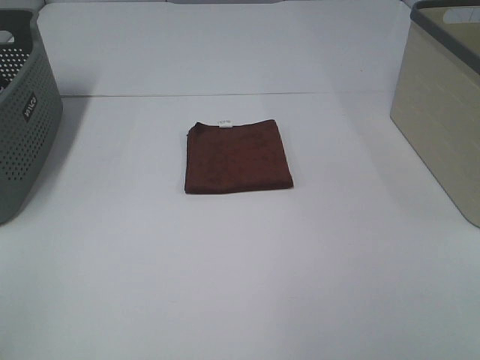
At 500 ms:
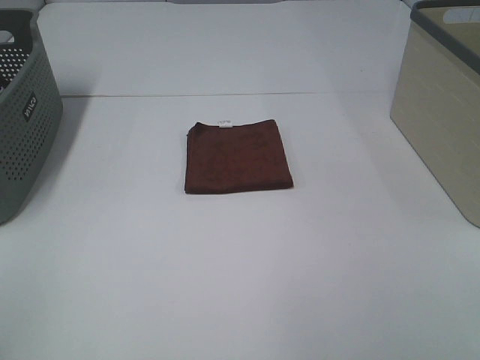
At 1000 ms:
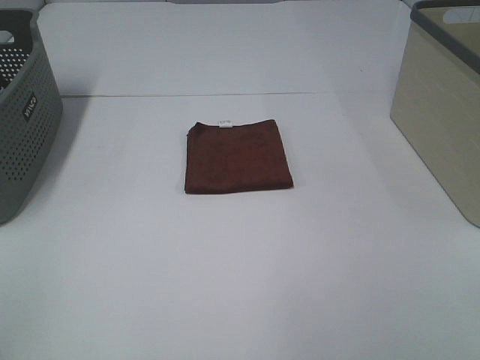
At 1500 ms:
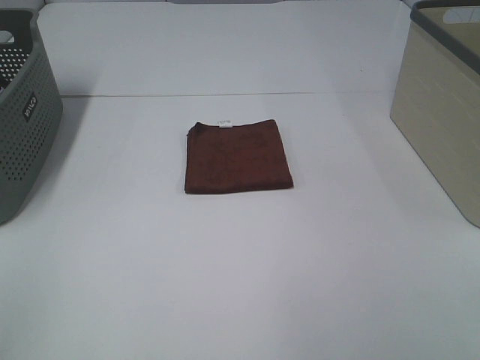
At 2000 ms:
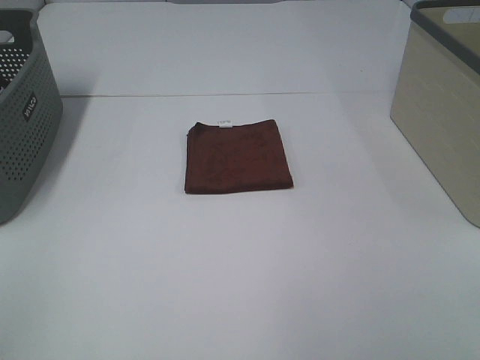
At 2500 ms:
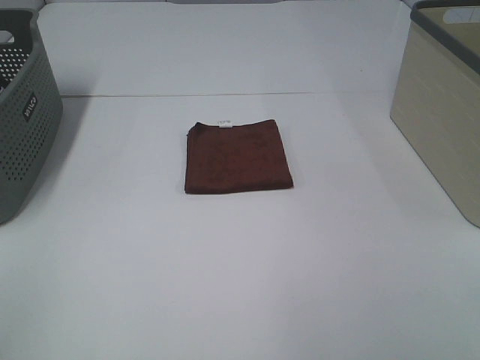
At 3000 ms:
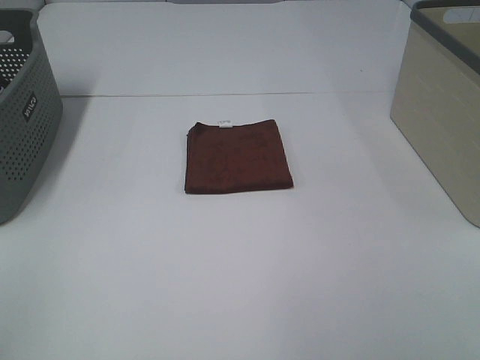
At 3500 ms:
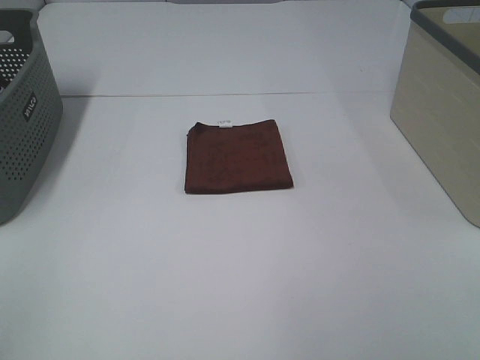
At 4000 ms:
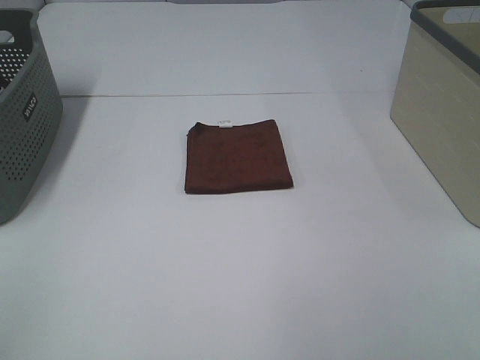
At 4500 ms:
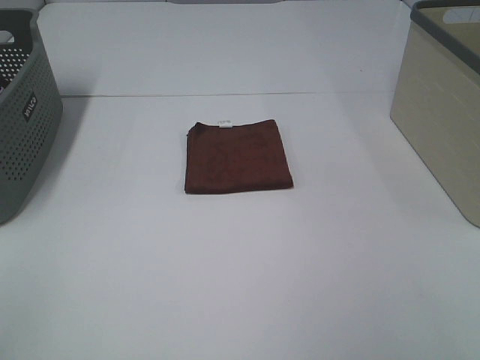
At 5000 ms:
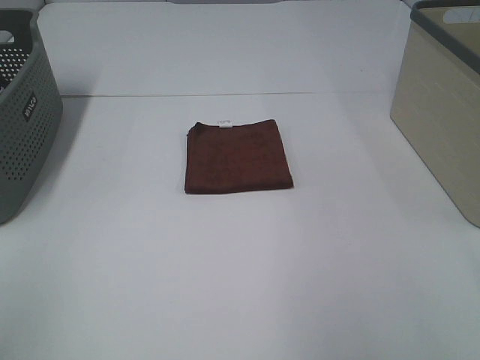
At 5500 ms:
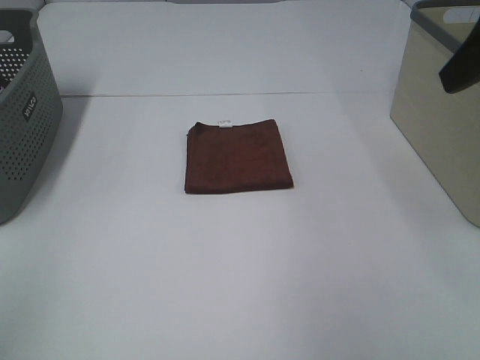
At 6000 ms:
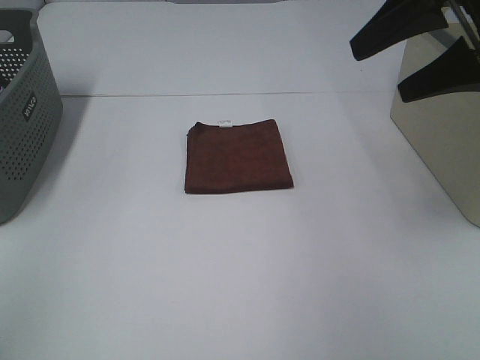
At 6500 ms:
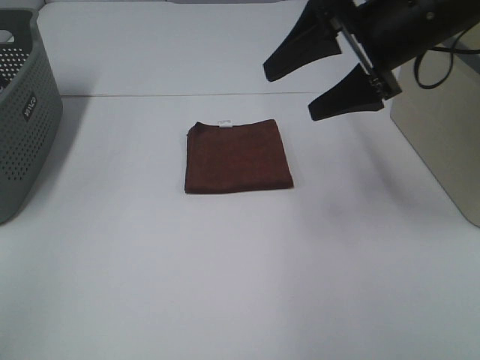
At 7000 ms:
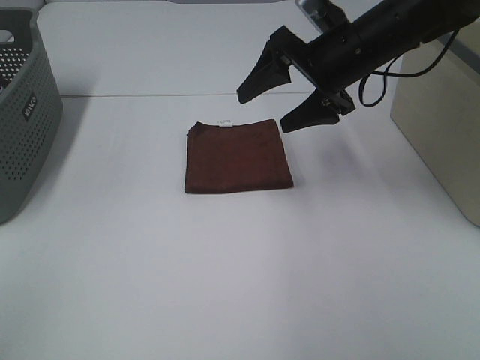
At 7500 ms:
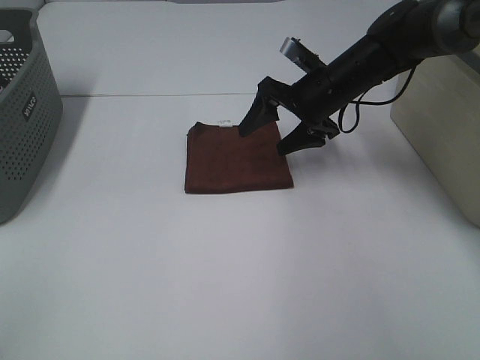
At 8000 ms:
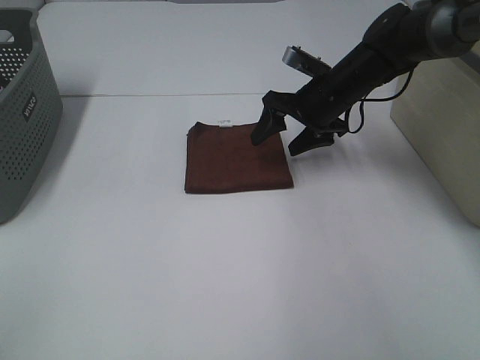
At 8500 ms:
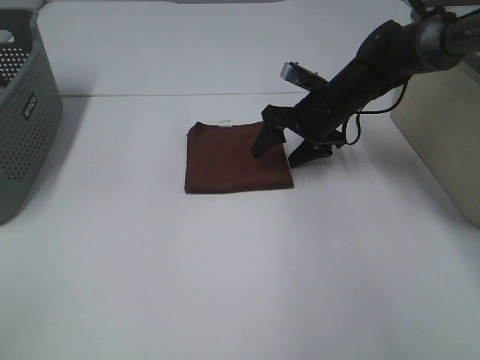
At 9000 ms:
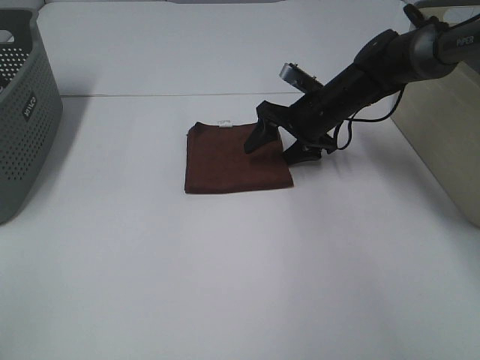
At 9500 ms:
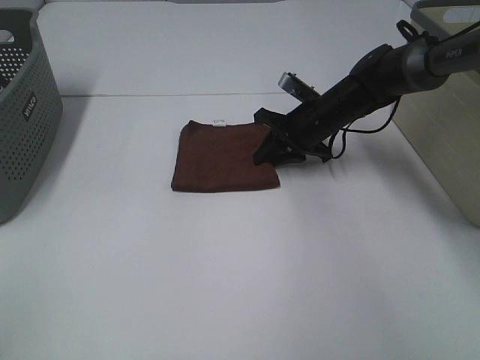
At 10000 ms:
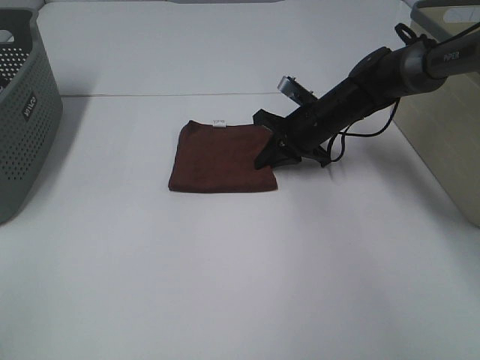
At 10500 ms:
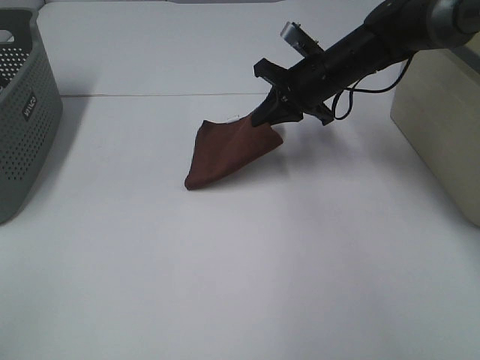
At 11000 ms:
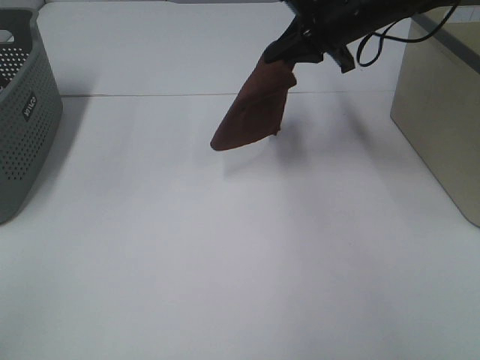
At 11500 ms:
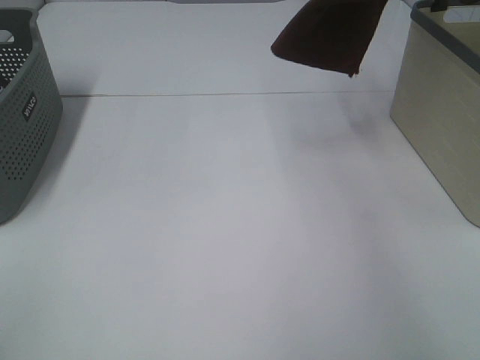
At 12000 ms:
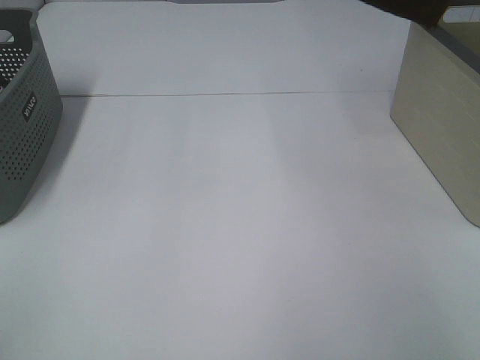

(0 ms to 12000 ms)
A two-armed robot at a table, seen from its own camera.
Step, 0 ms - 9500 ms: Right hand: grab the folded brown towel.
0 ms - 4000 ms: Both grippers stay put.
4000 ms - 6000 ms: The right gripper moves forward, approximately 30 cm.
6000 ms - 8000 ms: The right gripper travels downward, forward and to the left by about 25 cm.
8000 ms - 10000 ms: The right gripper shifts about 5 cm downward, and closes its fingers.
10000 ms - 12000 ms: The right gripper moves upward and to the right, about 35 cm.

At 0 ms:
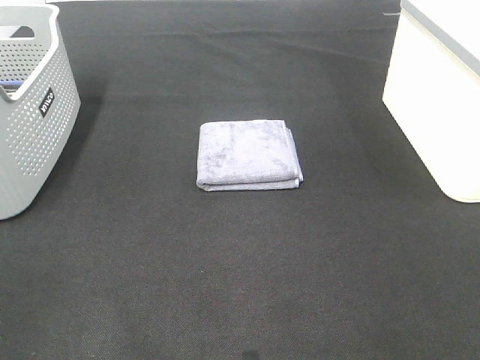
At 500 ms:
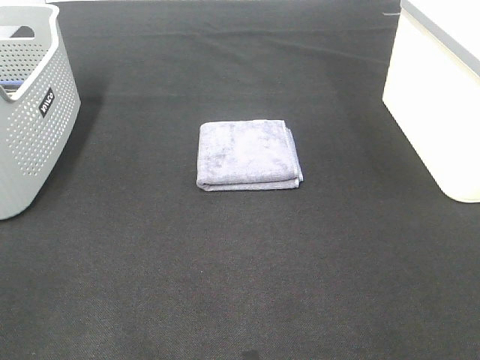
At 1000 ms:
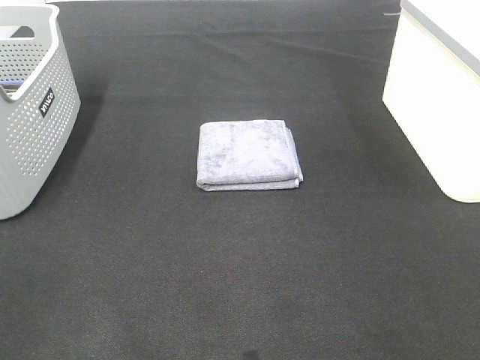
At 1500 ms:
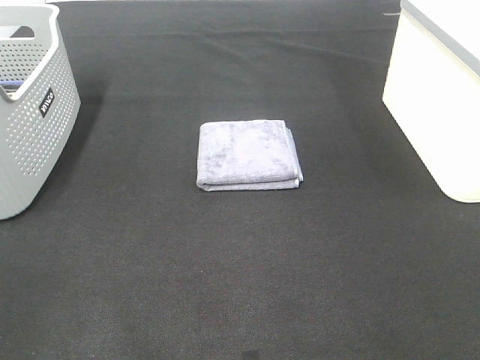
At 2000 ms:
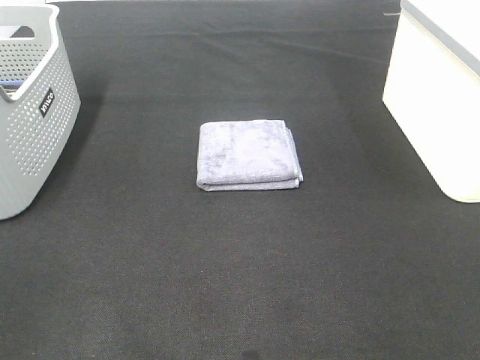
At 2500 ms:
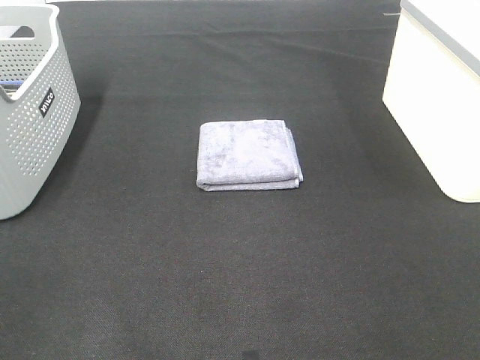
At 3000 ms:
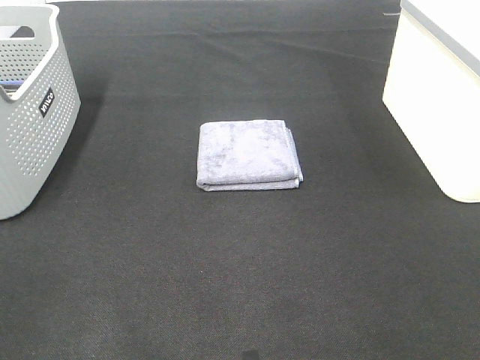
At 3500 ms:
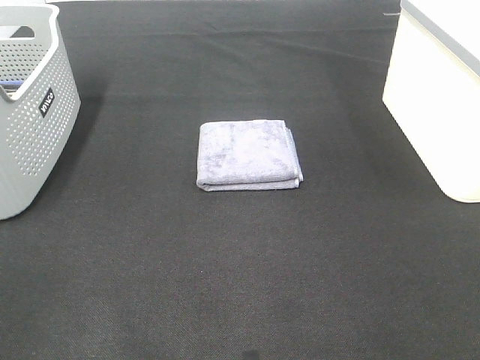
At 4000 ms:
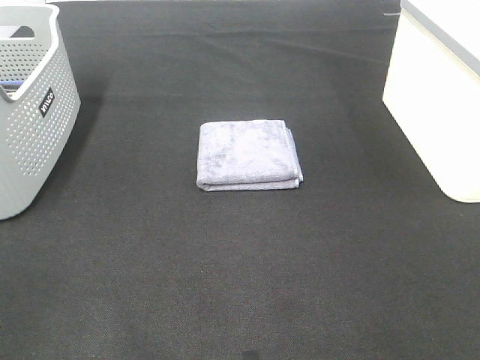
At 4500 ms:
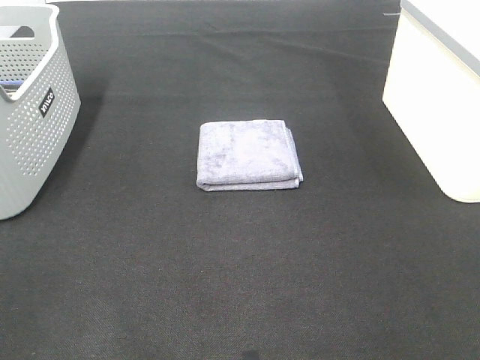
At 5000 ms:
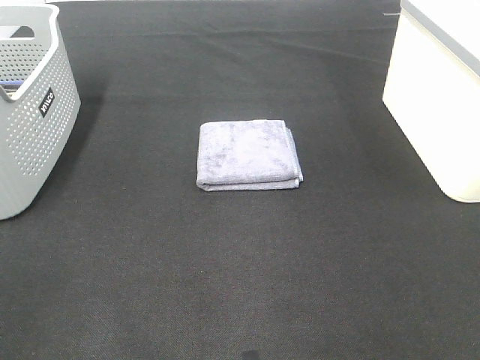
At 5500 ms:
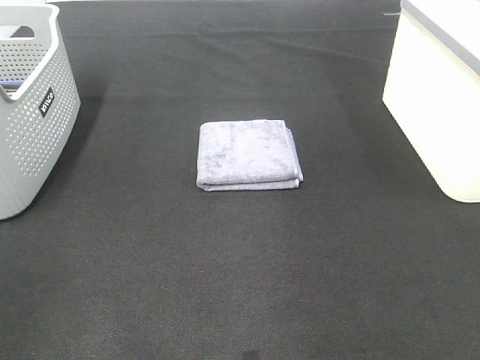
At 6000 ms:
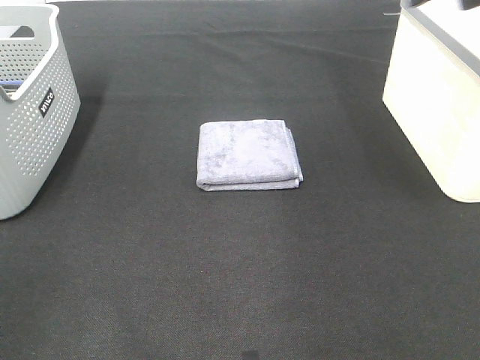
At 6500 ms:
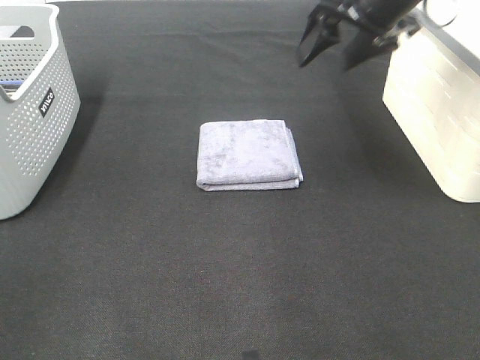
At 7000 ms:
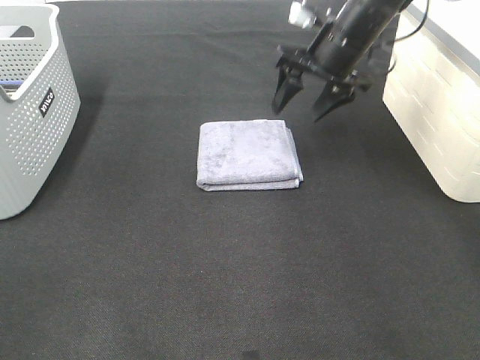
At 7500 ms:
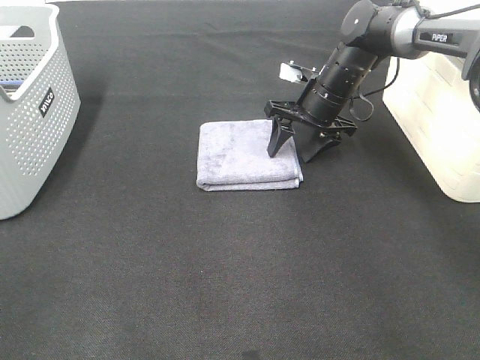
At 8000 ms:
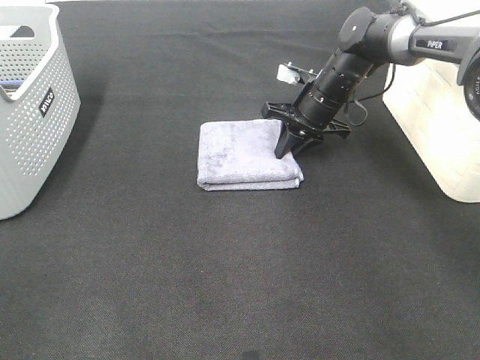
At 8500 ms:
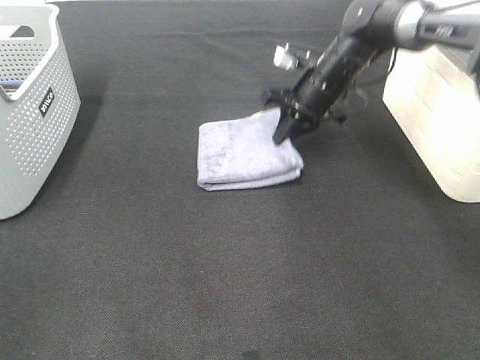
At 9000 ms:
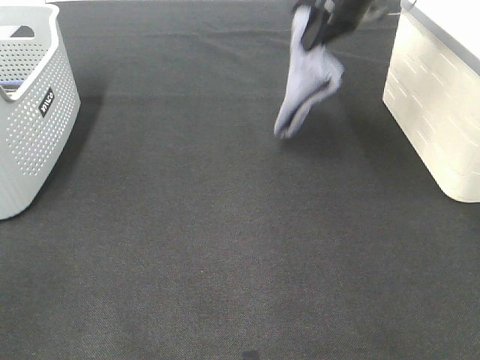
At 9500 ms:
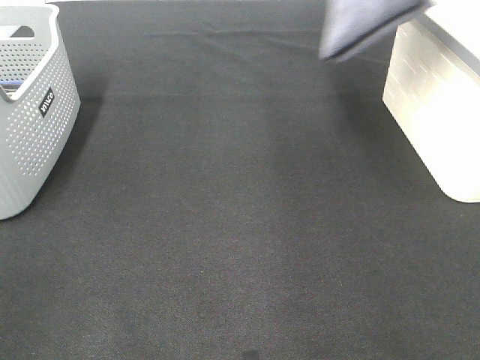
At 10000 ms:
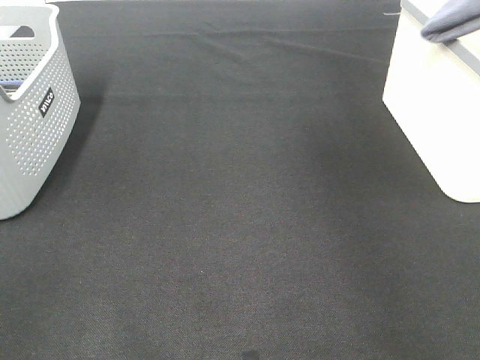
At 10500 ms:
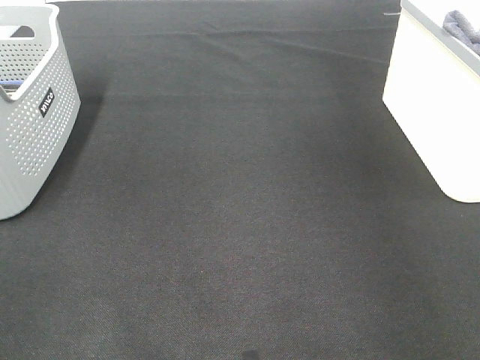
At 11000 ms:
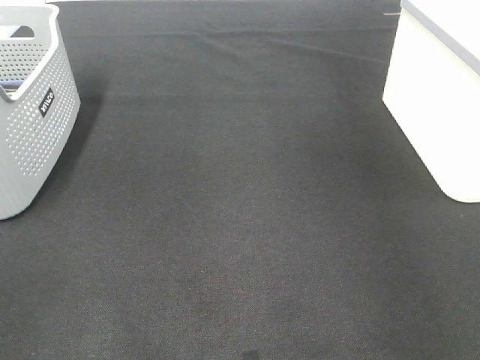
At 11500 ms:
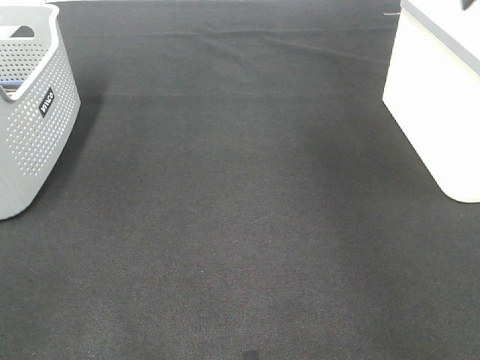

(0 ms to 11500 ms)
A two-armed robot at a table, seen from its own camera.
Step, 0 ms - 8000 ms: Right hand: grab the folded grey towel.
Step, 8500 ms - 11000 ms: Right hand: place the grey towel in right basket.
0 ms - 4000 ms: Both grippers stay about where they are.
6000 ms - 7500 ms: The right gripper is displaced downward, forward and to the left by roughly 30 cm.
7500 ms - 9500 ms: The right gripper shifts roughly 30 cm upward, and closes.
9500 ms - 11500 ms: The right gripper goes roughly 10 cm to the right, and opens up.

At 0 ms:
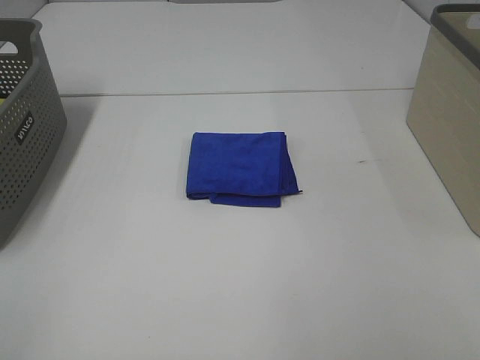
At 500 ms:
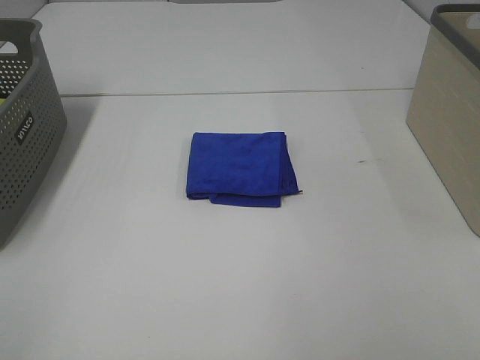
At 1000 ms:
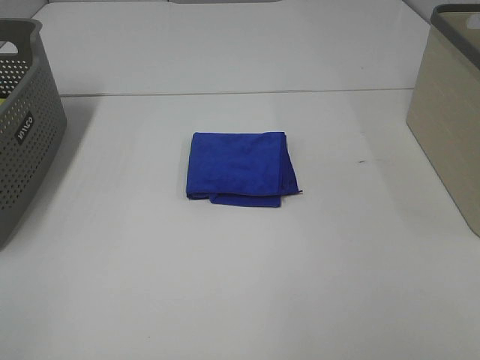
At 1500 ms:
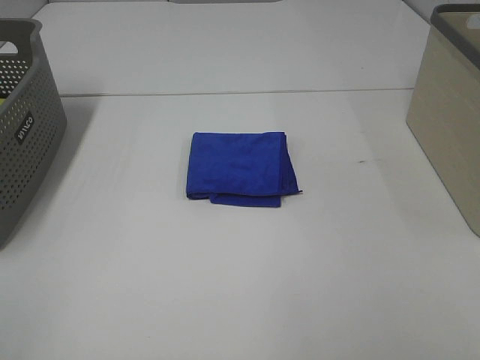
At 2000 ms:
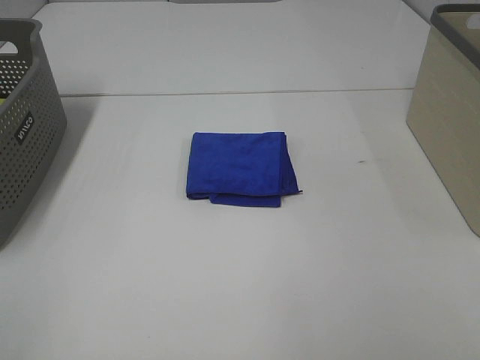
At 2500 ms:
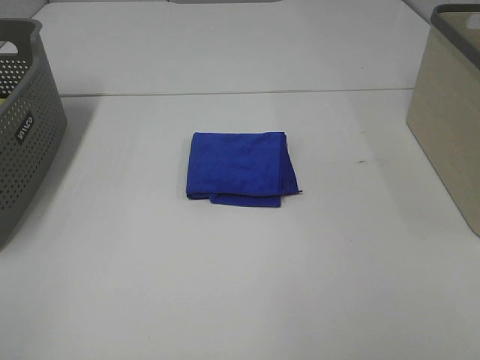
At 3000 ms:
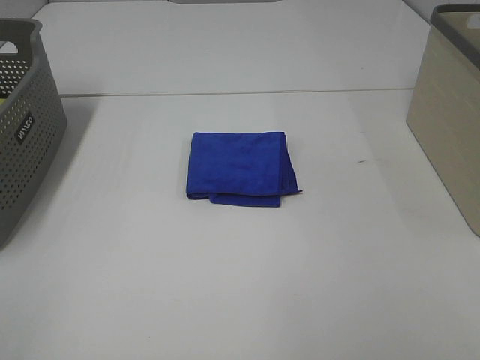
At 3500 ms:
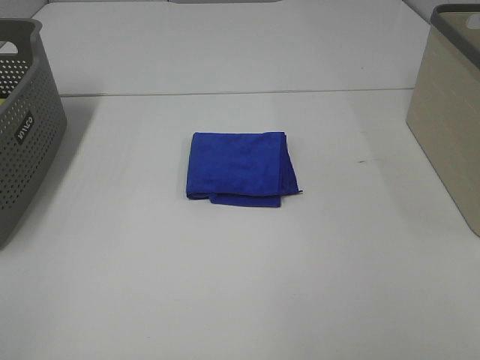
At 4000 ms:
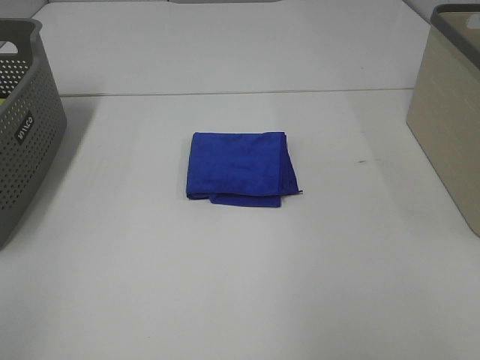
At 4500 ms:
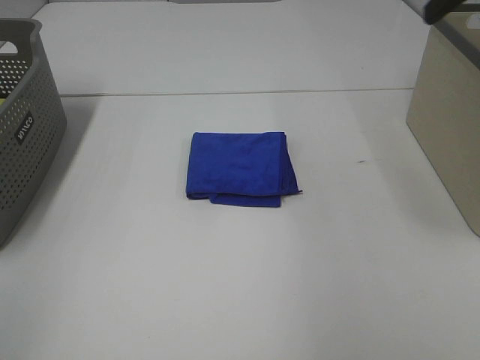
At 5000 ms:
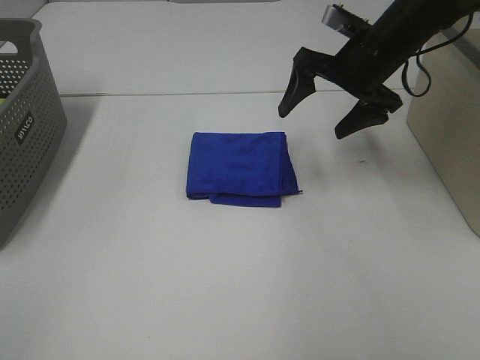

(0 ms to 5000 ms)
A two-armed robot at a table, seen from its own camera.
0 ms - 2500 ms: Both grippers stay put.
2500 ms - 5000 ms: The right gripper shifts approximately 40 cm forward.
